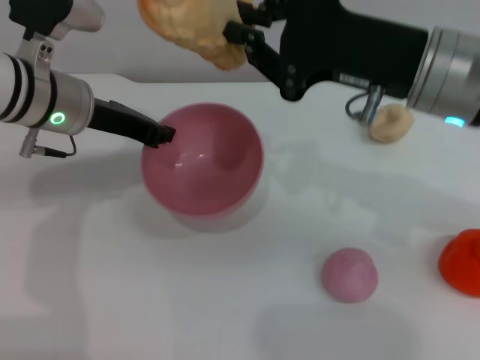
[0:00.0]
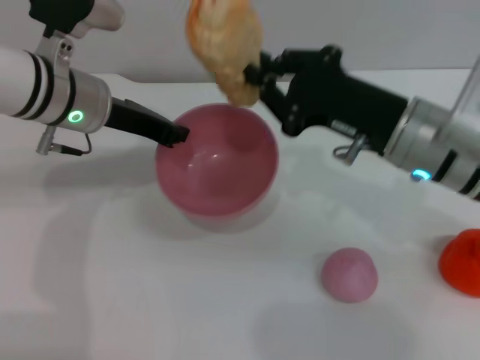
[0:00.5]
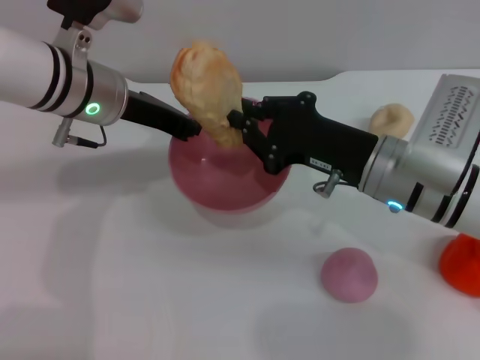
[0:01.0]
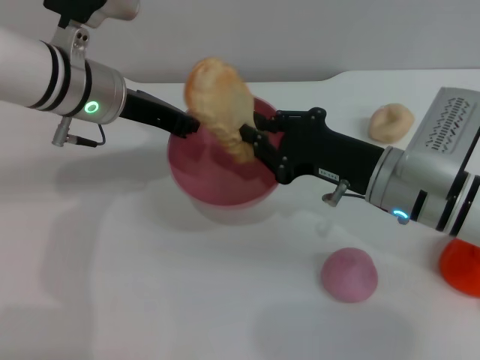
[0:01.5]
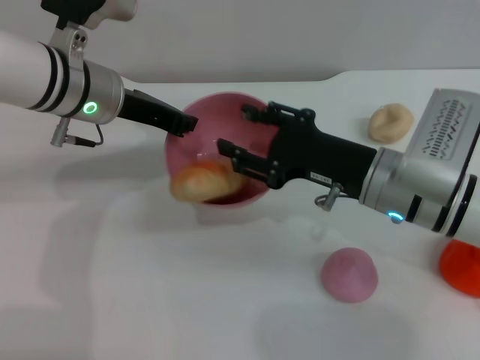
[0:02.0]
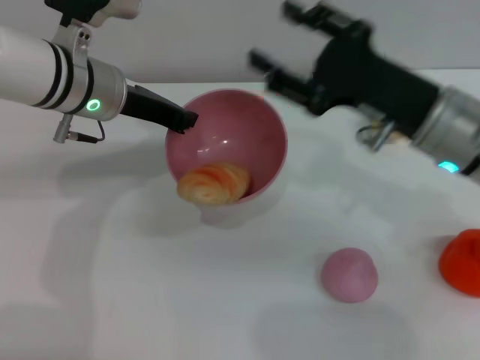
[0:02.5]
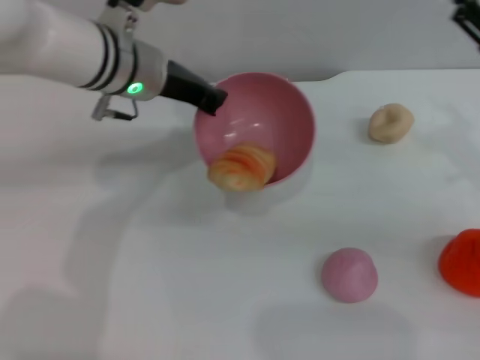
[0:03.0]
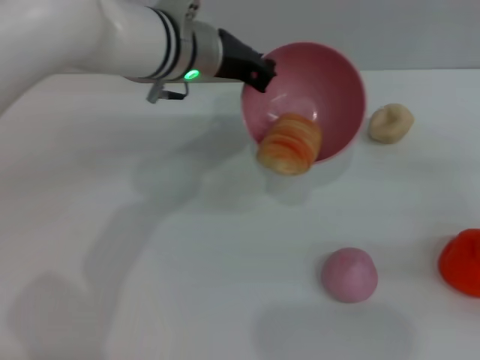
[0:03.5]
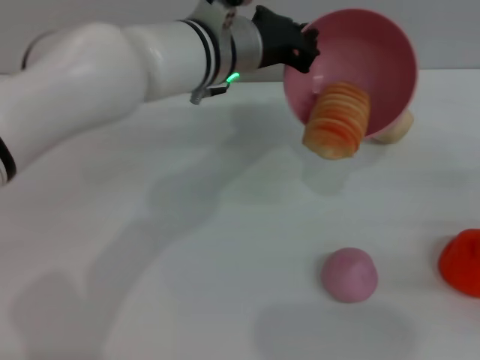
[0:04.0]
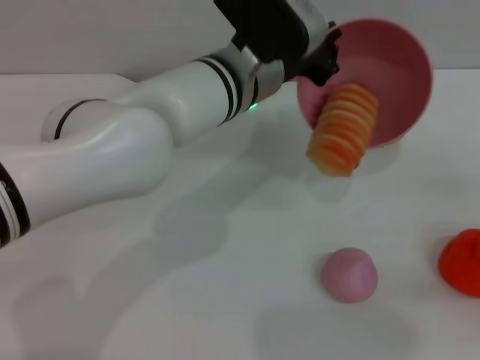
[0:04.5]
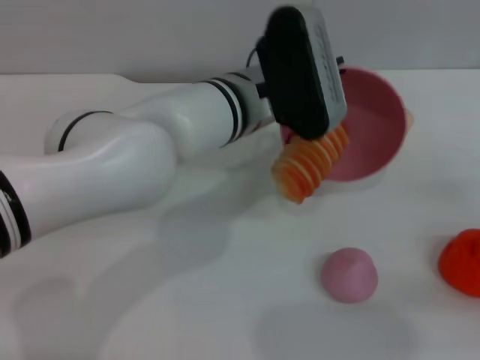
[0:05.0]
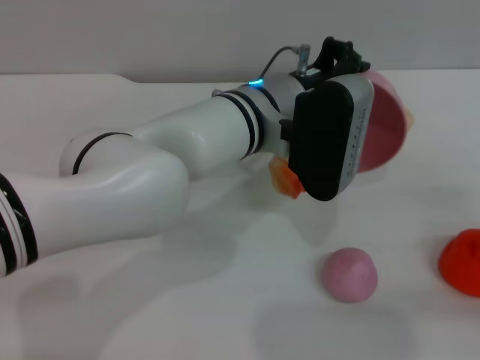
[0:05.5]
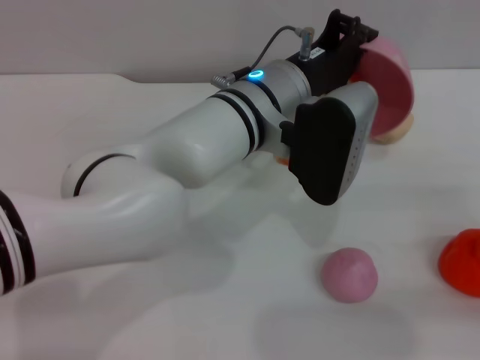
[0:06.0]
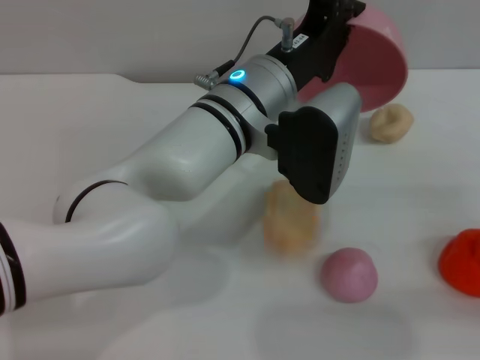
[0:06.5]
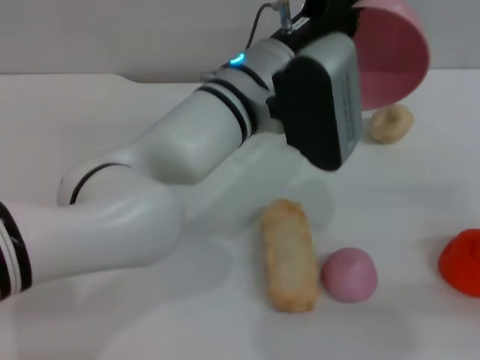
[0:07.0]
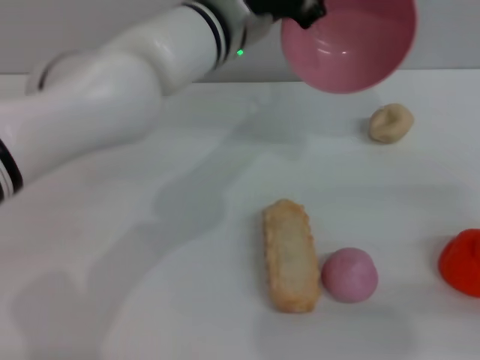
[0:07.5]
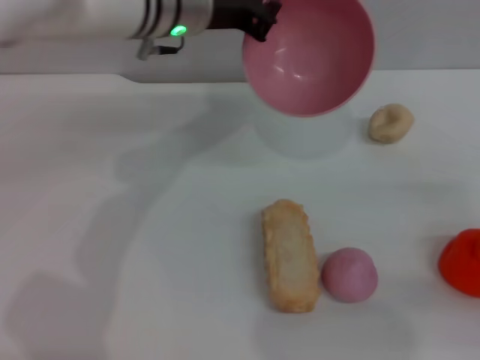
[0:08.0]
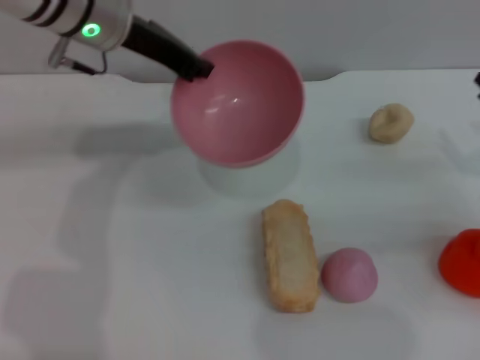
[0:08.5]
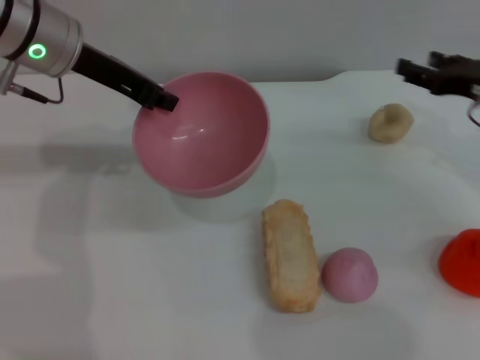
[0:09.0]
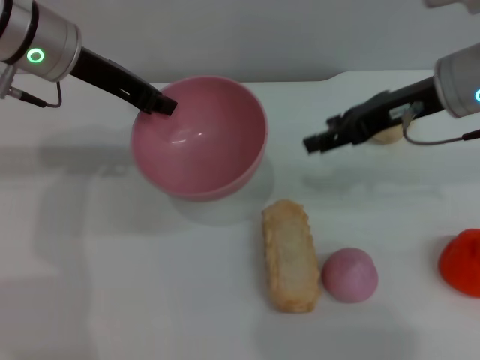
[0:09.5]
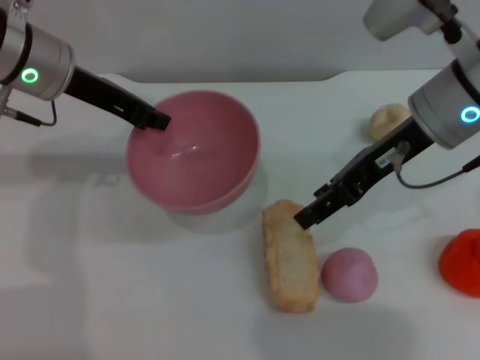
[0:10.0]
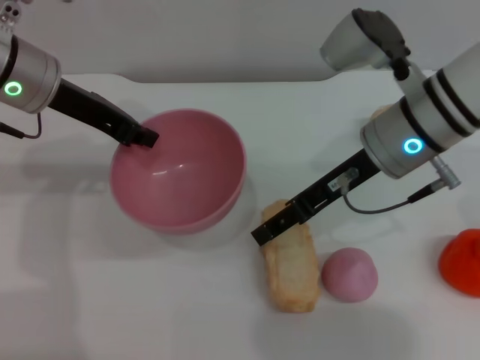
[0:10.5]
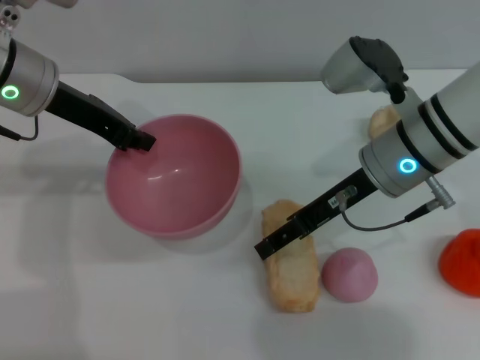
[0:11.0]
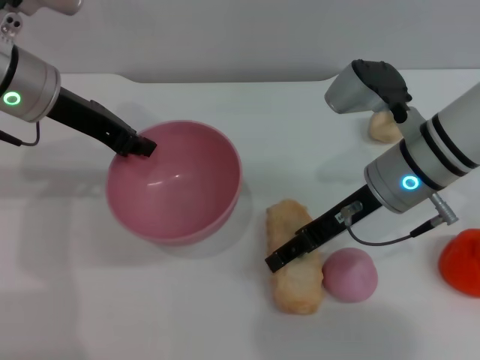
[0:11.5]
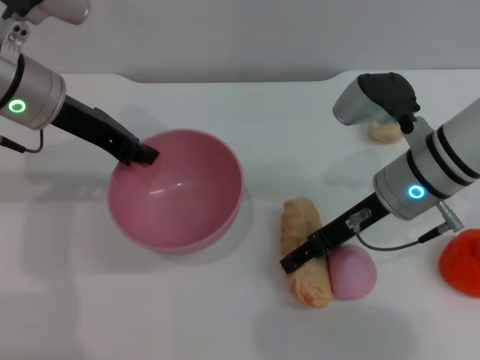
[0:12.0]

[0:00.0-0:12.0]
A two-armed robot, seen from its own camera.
Task of the whole recording: put the bread into the pink bowl and pour it out repeatedly.
Step, 0:00.0 to 0:02.0: Place the bread into the bowl.
Step, 0:02.5 to 0:07.0: Pour the bread out of the bowl.
0:00.0 to 0:02.0: The right gripper goes some 10 cm downward, and opens.
0:02.0 to 0:04.0: The left gripper travels to the right by roughly 15 cm, while the right gripper heads to the right, covering about 25 cm, and opens its fingers.
0:04.0 to 0:06.0: The left gripper moves backward, about 5 cm.
0:06.0 to 0:08.0: The left gripper shifts approximately 15 cm forward, to the left and upward.
0:08.0 to 0:10.0: The left gripper is displaced to the left by about 10 cm. The right gripper travels to the left, forward and upward by approximately 25 cm.
0:10.0 to 0:12.0: The right gripper travels downward by about 10 cm.

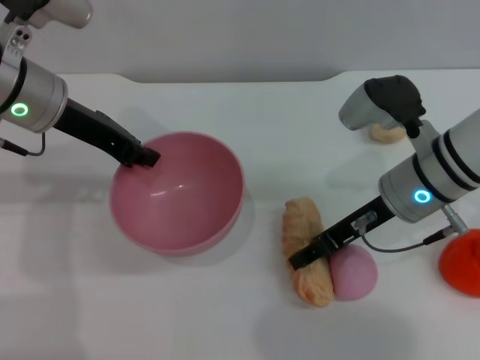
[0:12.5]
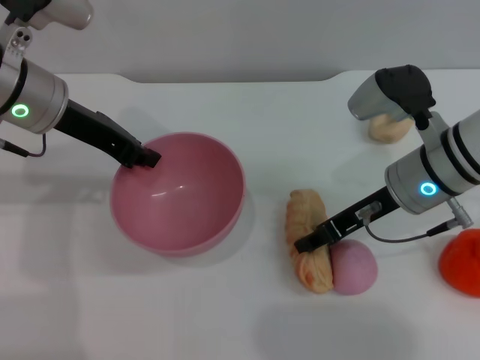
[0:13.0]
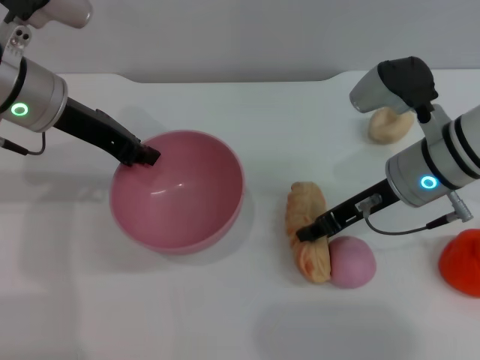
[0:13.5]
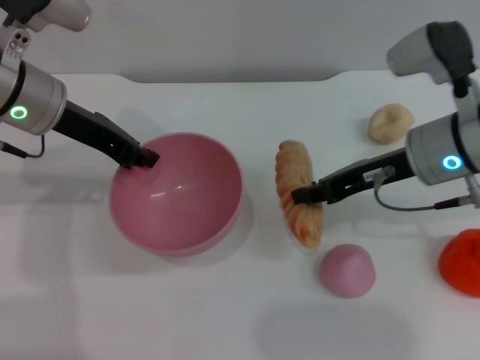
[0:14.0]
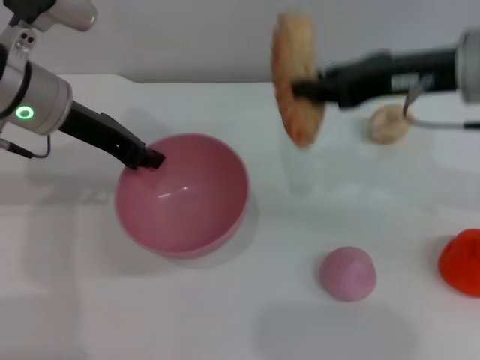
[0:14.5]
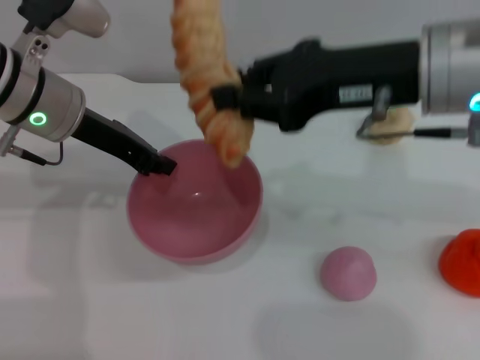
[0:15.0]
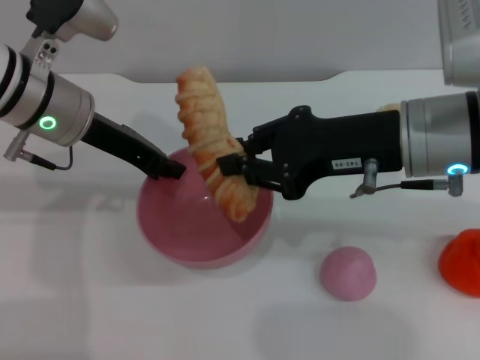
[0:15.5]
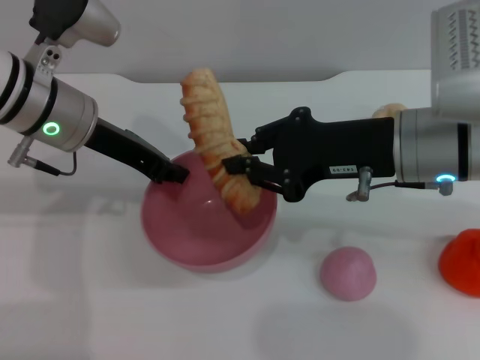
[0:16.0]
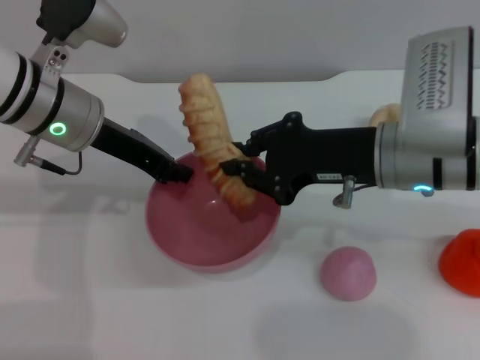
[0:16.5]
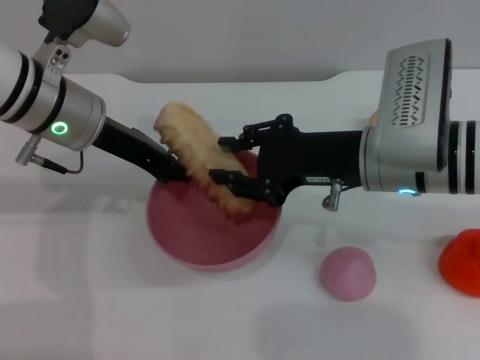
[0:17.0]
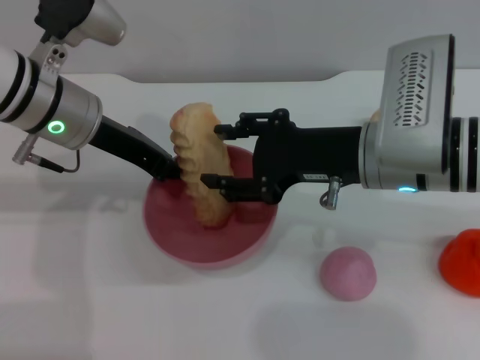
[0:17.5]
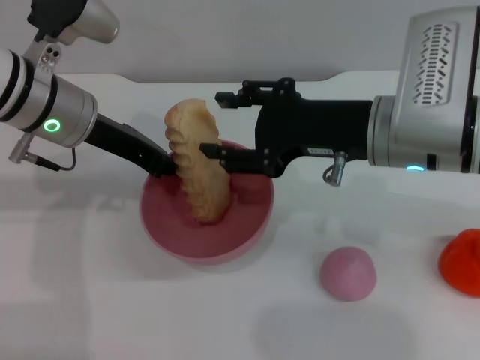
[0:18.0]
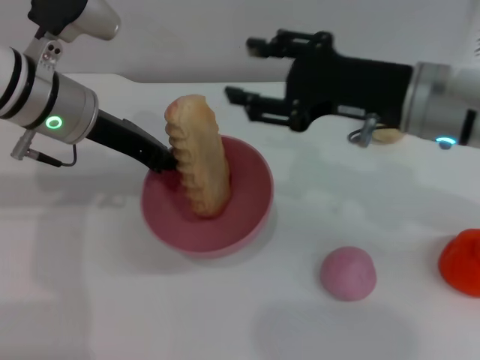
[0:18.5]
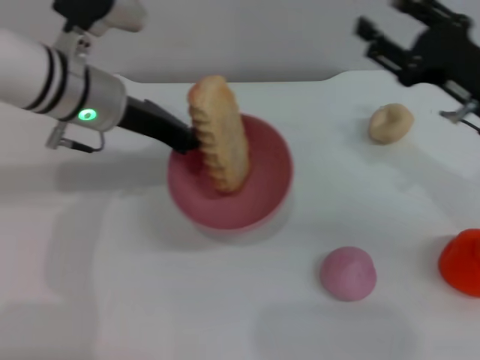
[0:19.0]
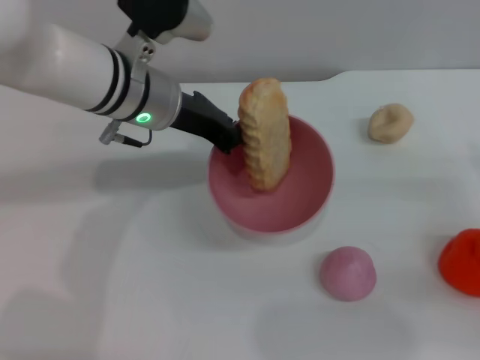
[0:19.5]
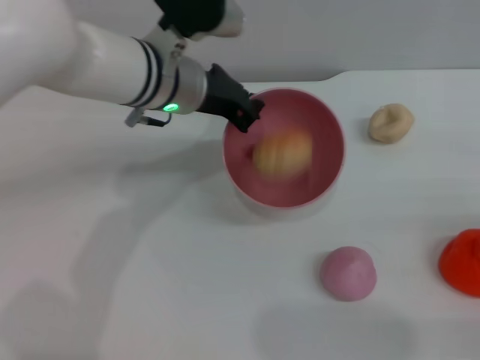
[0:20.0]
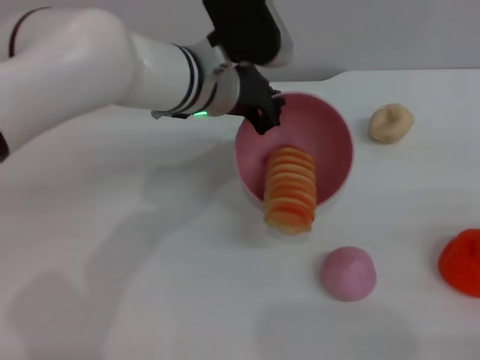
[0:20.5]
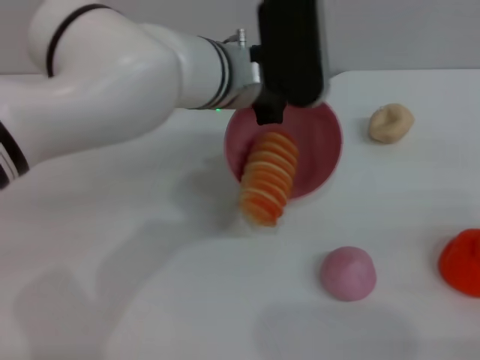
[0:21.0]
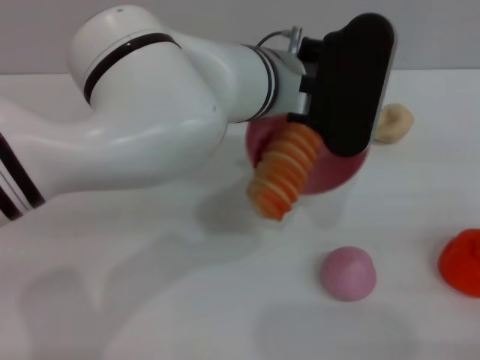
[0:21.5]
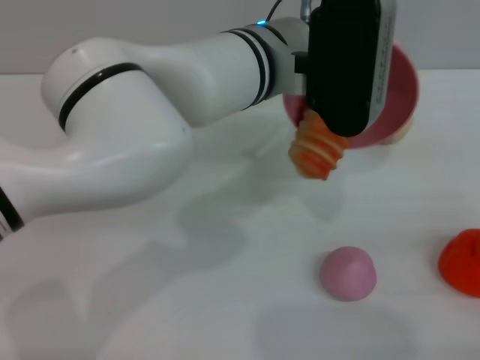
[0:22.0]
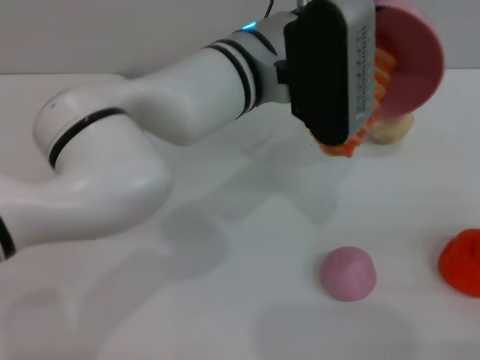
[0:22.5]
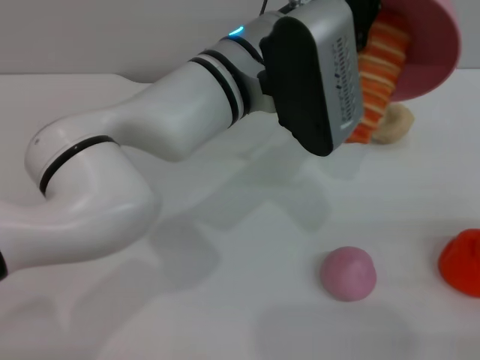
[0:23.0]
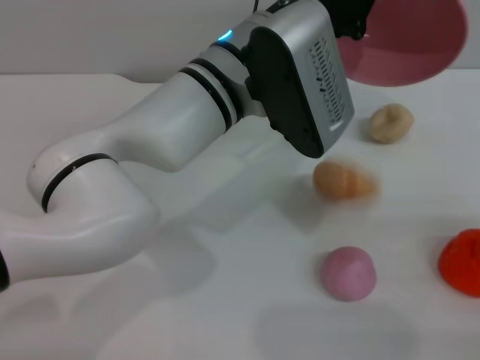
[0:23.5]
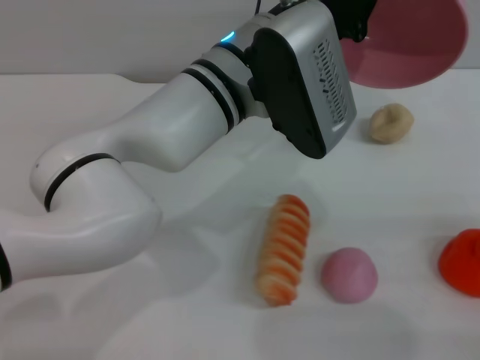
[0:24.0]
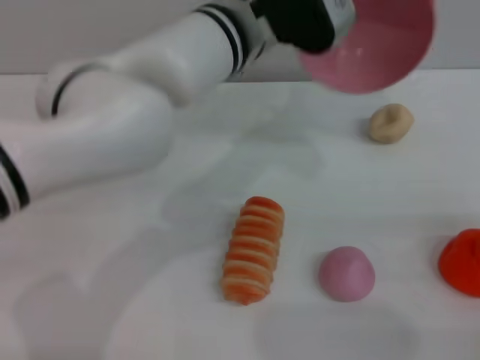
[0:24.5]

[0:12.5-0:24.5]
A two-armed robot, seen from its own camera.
Task of the whole recording: put the bread into the pink bowl and pour it out repeatedly.
Step, 0:14.5 to 0:18.0: Place the bread into the bowl.
Step, 0:18.5 to 0:24.0: Pour the bread out of the bowl.
0:12.5 to 0:14.5: The right gripper moves upward, some 15 cm, and closes.
0:14.5 to 0:16.5: The right gripper moves downward, approximately 10 cm.
0:16.5 to 0:18.5: The right gripper opens its fingers.
0:18.5 to 0:20.5: The left gripper moves to the right, approximately 15 cm; the right gripper goes roughly 30 cm to the right, backward and downward.
0:20.5 to 0:22.5: The left gripper heads to the right, covering some 5 cm.

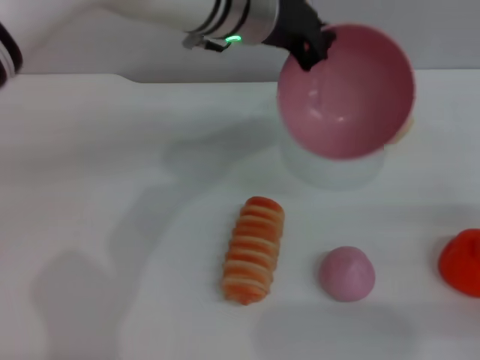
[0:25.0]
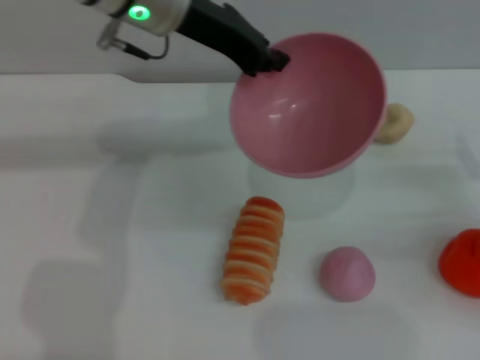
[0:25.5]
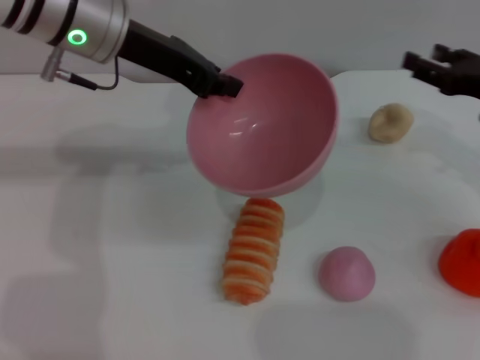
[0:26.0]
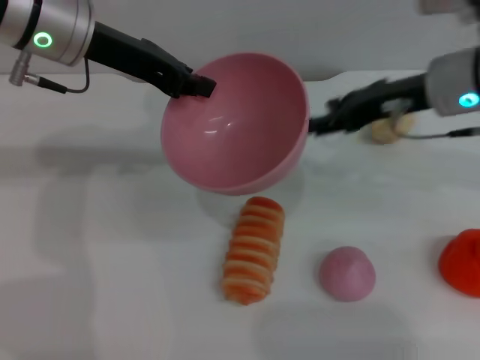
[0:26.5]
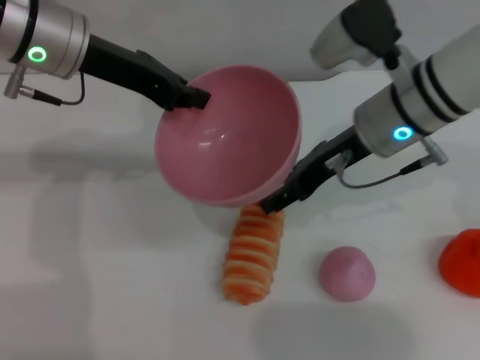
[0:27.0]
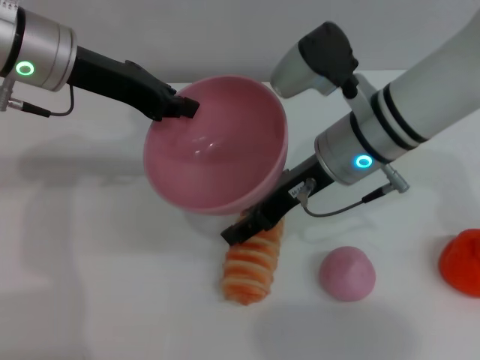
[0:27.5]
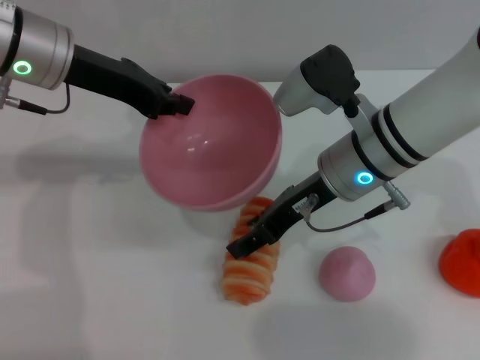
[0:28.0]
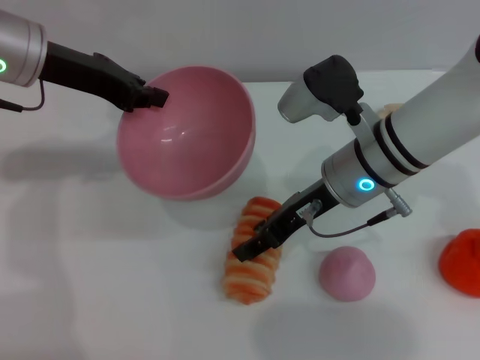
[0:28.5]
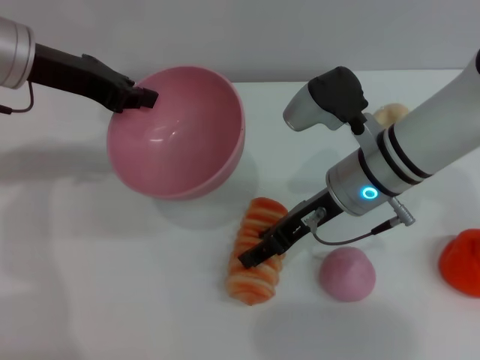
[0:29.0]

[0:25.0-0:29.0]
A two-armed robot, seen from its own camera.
Task of the whole recording: put the bread into the pink bowl and pour it out repeatedly.
0:25.0 to 0:27.0: The right gripper heads to the left, forward and upward, covering about 30 cm. The left gripper travels to the left by about 15 cm.
0:27.0 to 0:29.0: The left gripper ends up approximately 5 cm from where it was; the right gripper is displaced downward by some 5 cm.
